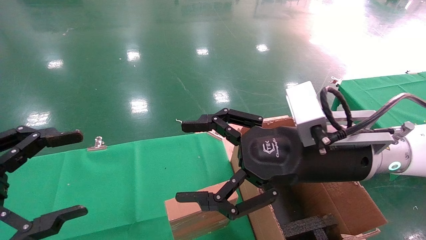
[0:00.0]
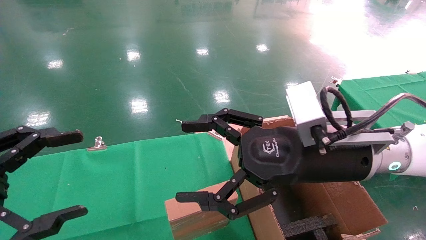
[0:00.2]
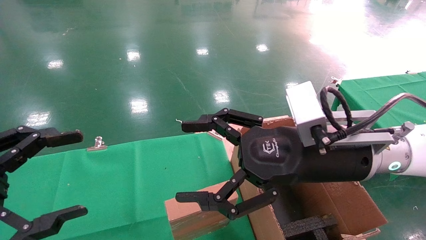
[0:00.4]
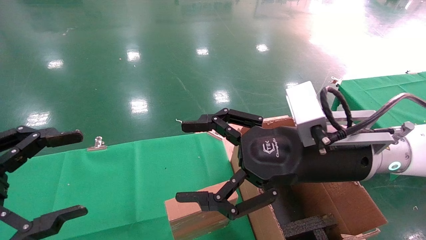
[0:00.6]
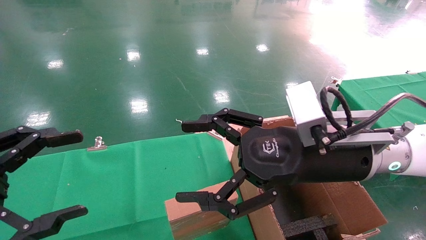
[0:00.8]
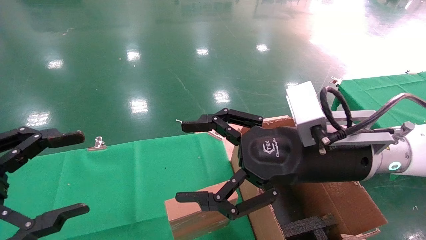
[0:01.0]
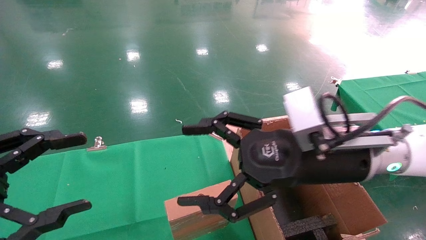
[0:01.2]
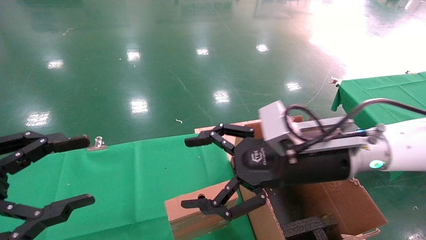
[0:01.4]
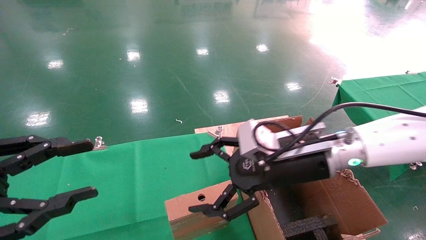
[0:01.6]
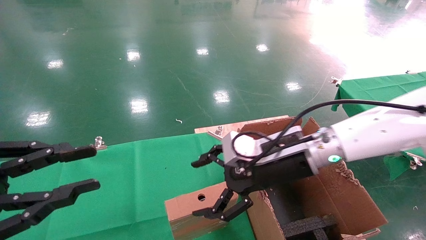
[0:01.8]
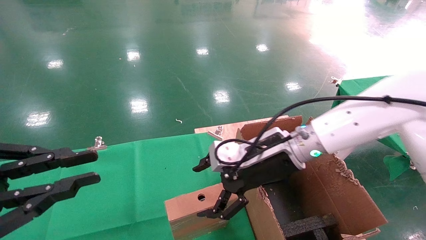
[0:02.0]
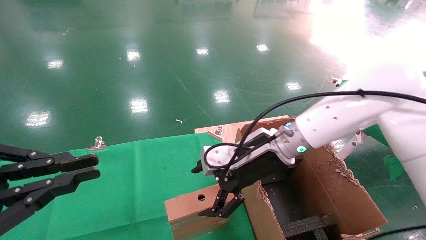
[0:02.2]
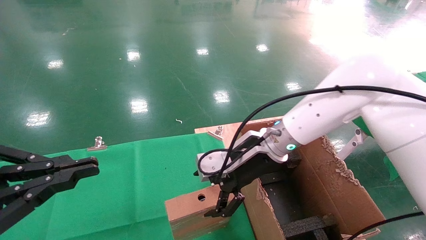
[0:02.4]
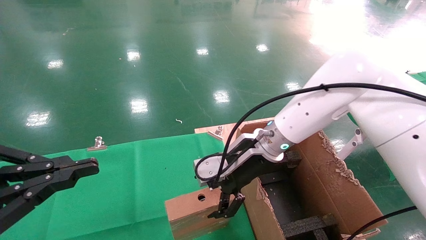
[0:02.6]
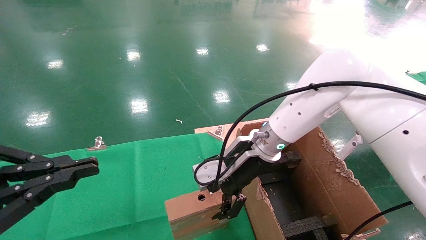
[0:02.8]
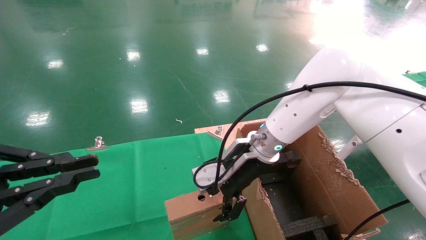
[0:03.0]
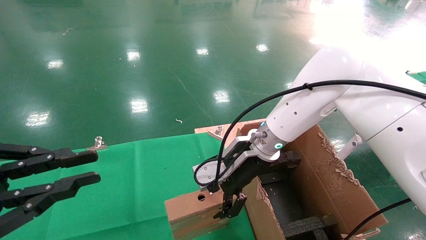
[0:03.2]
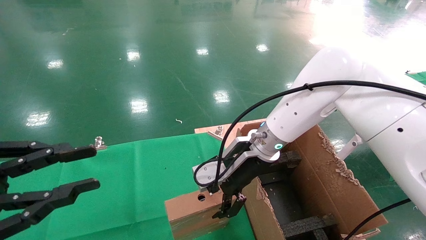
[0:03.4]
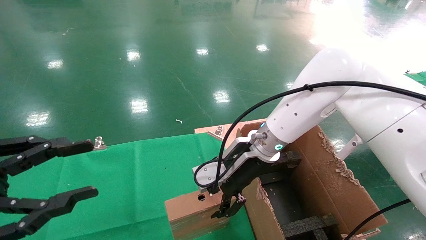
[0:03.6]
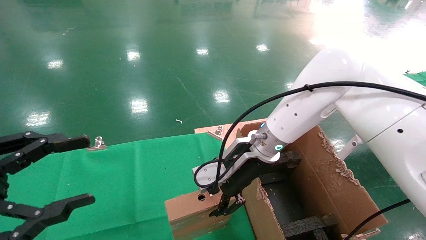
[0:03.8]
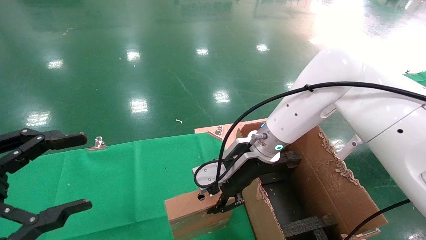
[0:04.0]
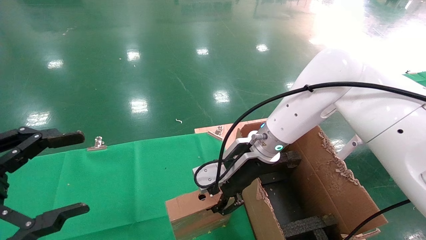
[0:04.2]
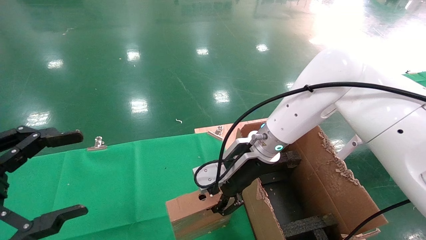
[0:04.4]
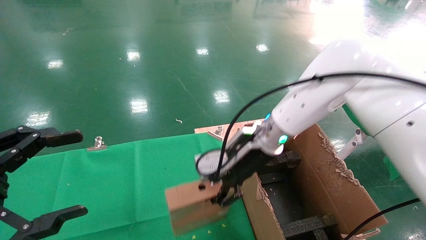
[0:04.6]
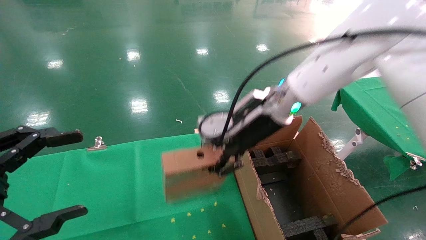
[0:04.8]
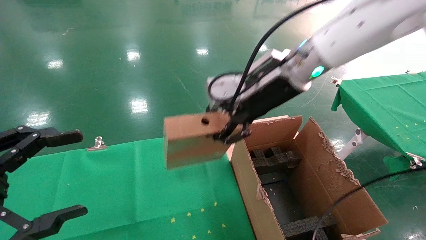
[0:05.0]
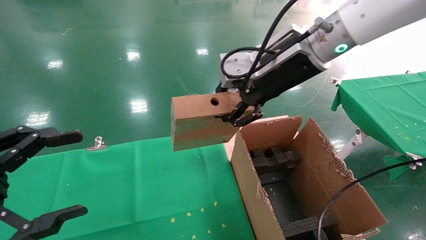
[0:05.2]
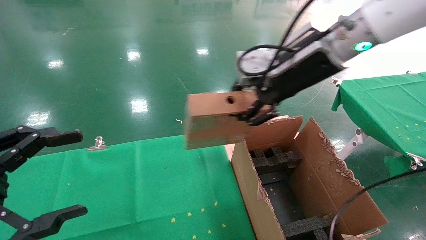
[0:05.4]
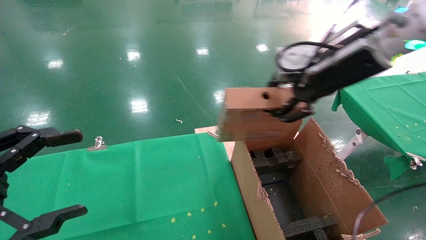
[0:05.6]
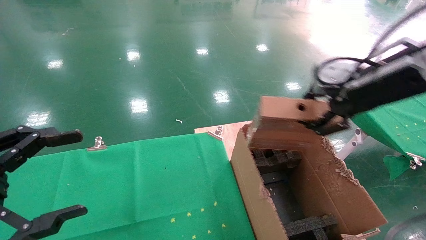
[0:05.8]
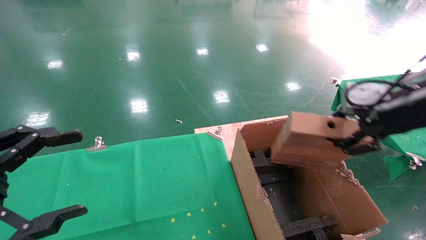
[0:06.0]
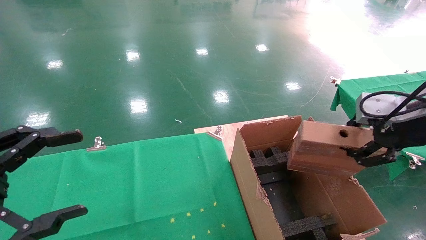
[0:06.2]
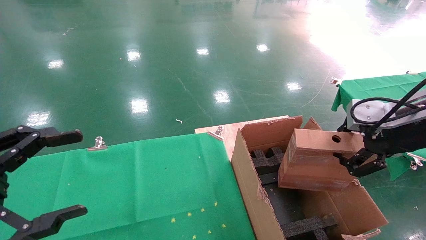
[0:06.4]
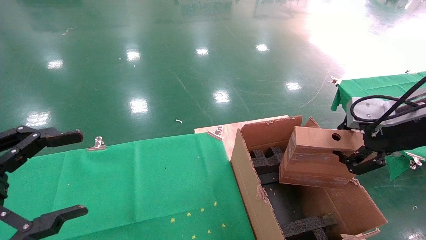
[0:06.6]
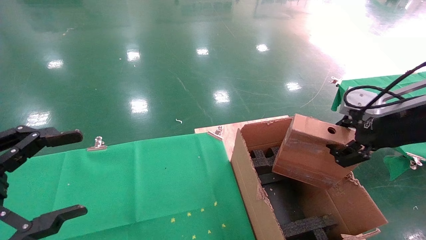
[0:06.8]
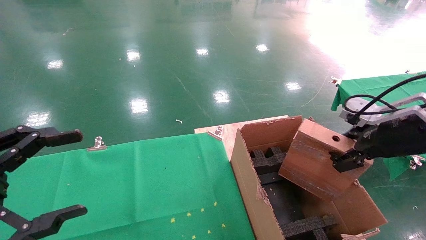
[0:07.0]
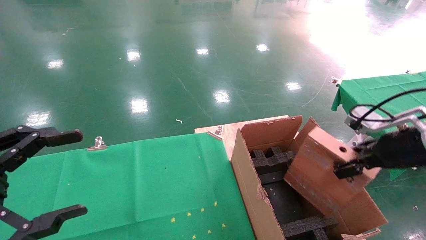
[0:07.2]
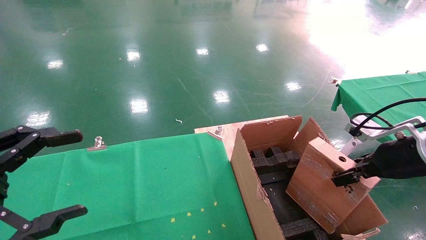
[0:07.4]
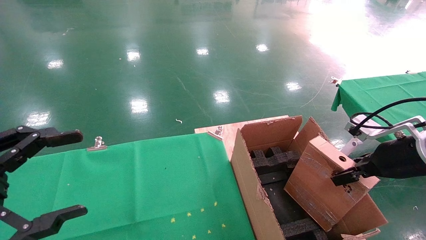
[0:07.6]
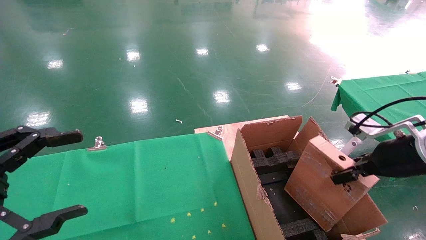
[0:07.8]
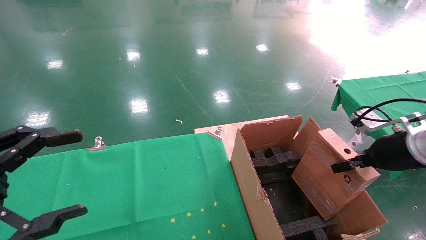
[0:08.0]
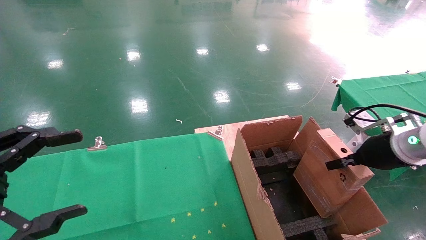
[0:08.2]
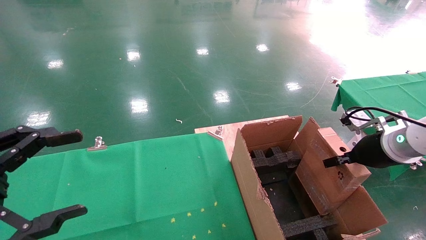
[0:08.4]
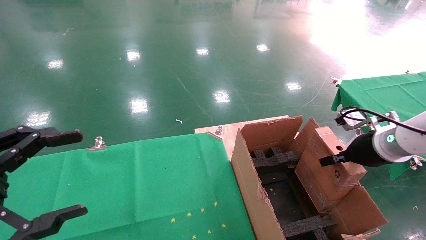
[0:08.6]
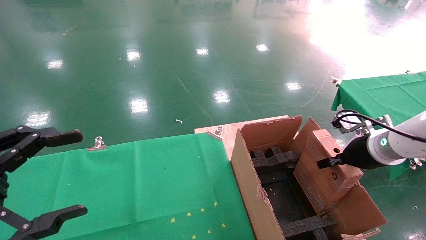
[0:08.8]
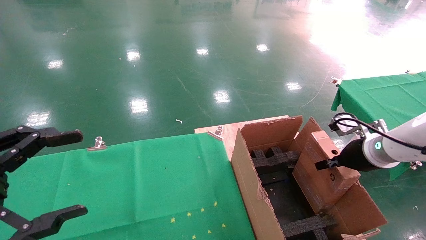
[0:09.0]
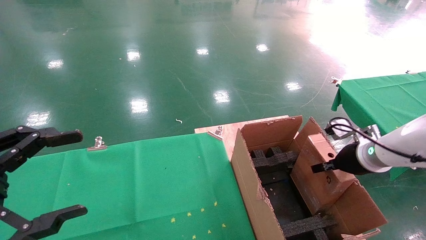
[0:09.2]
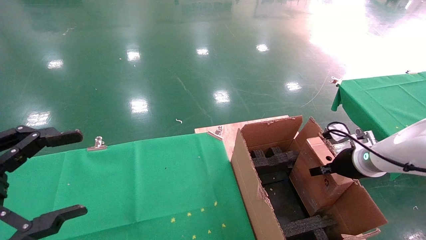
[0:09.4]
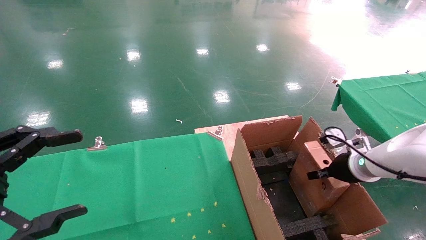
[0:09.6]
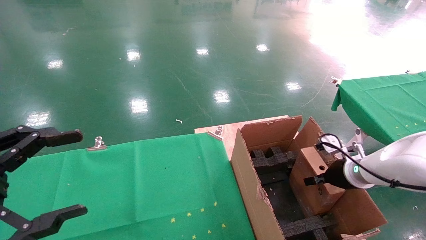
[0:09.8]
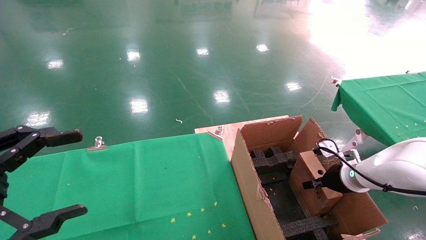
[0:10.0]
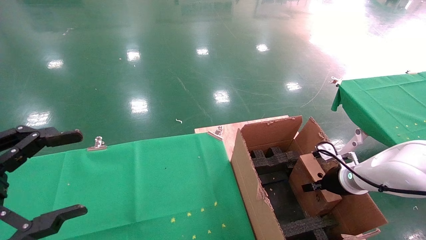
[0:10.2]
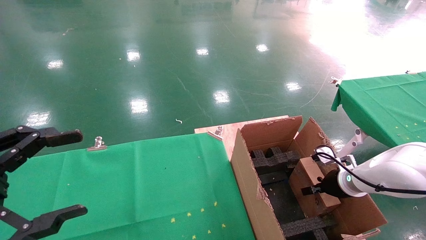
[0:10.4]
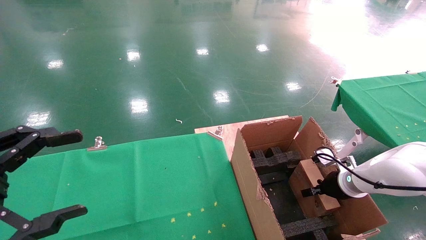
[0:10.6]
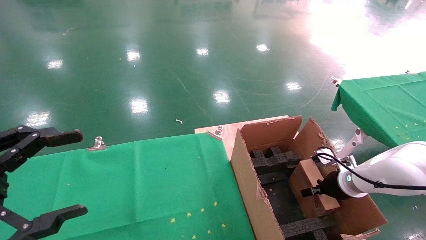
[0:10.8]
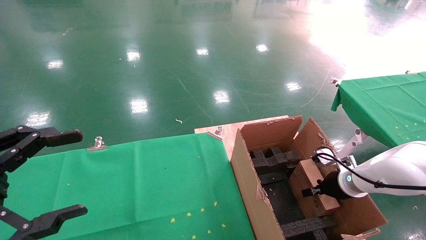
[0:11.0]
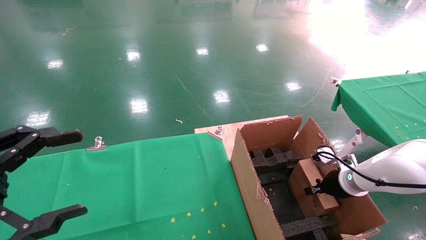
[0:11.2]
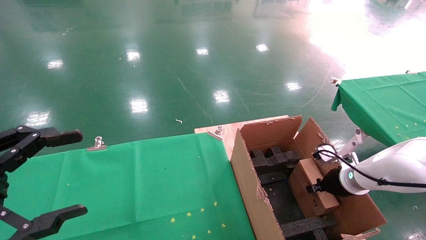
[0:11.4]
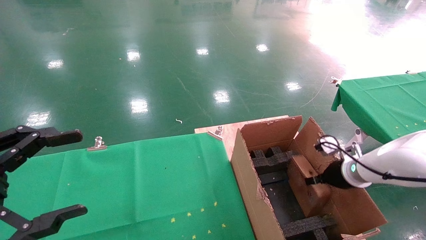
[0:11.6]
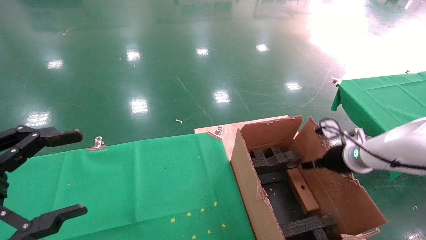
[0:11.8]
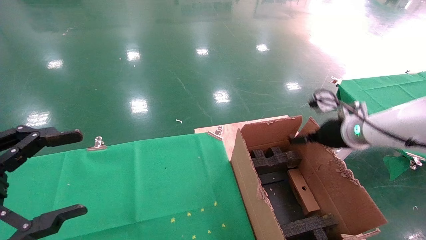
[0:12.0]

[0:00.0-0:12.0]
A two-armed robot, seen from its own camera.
Task of the whole recording: using a robotic arm to pick up a cardboard box and palace it the carton.
Step, 0:01.4 to 0:04.0: Pick up the mouse and the power cord paper box.
Step, 0:04.2 to 0:11.6: Place the mouse and the power cord paper box into the container.
0:00.0 to 0:01.6: The left gripper closes its fingers; the right gripper goes roughly 5 cm forward.
0:01.6 to 0:03.0: The right gripper is displaced forward and to the left by approximately 10 cm; the left gripper closes its fingers.
0:03.0 to 0:04.4: The left gripper opens its fingers. The right gripper closes up.
0:04.4 to 0:06.0: The right gripper shifts some 30 cm to the right, backward and upward.
0:06.0 to 0:07.6: The right gripper is displaced downward by about 10 cm.
0:07.6 to 0:09.0: The right gripper heads forward, covering about 10 cm.
0:09.0 to 0:10.4: The right gripper moves downward, approximately 10 cm.
0:10.4 to 0:12.0: The right gripper travels upward by roughly 15 cm, and opens its fingers.

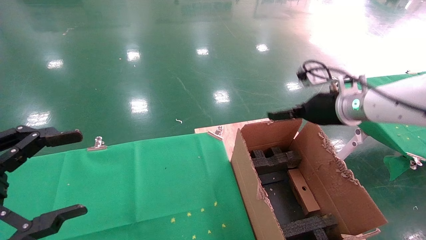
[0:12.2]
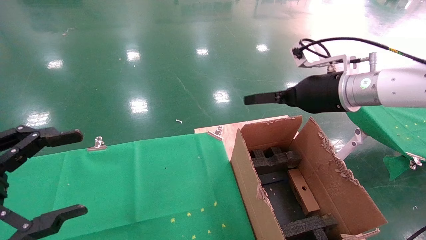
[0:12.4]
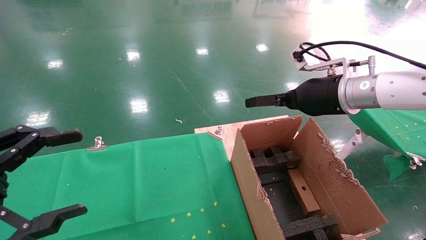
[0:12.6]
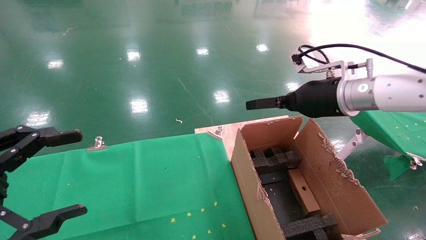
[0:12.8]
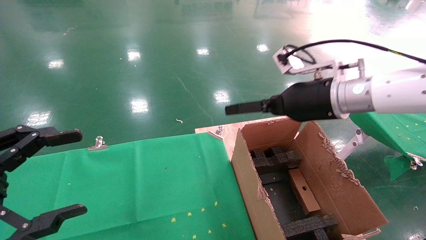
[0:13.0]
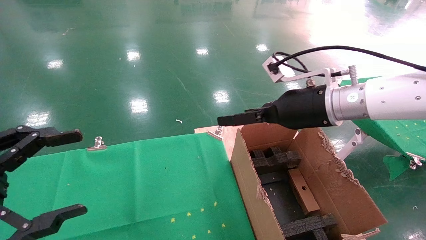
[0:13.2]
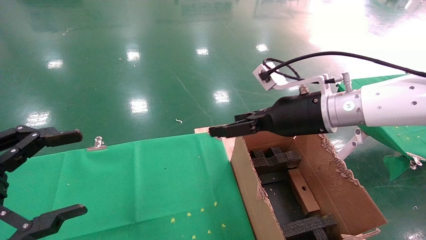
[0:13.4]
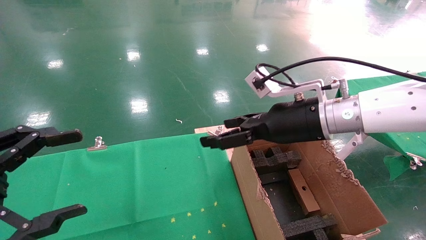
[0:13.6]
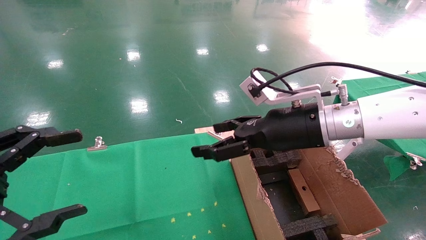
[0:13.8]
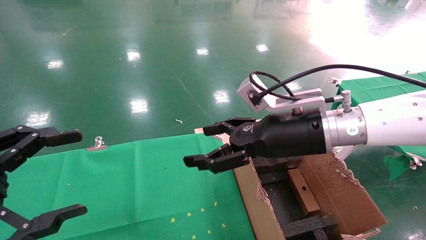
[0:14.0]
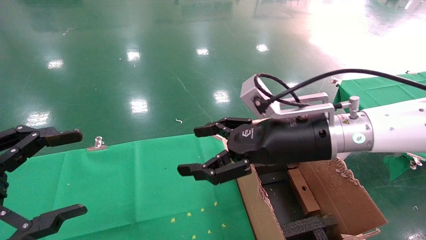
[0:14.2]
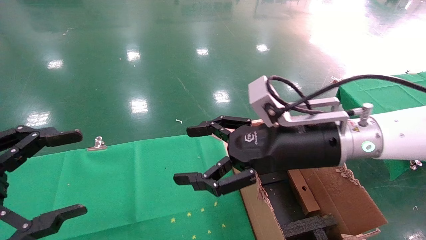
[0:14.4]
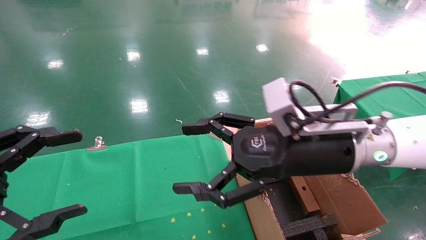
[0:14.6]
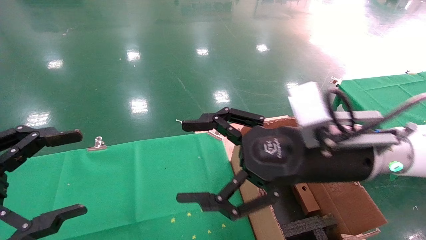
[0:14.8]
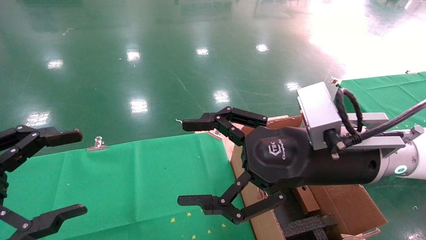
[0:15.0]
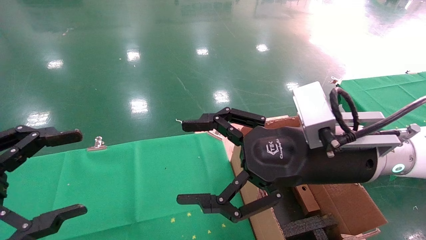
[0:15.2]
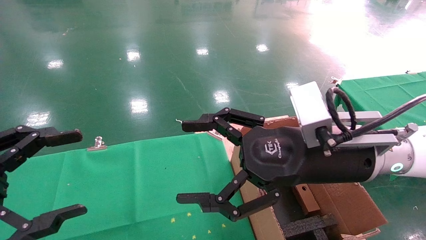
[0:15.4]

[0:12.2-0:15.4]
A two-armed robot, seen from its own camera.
Task of the whole recording: using a robotic arm to pick up a cardboard box and palace it the carton.
0:12.2 to 0:13.8: The right gripper is displaced to the left and backward by about 10 cm.
0:13.8 to 0:15.4: The right gripper travels backward by some 5 cm.
